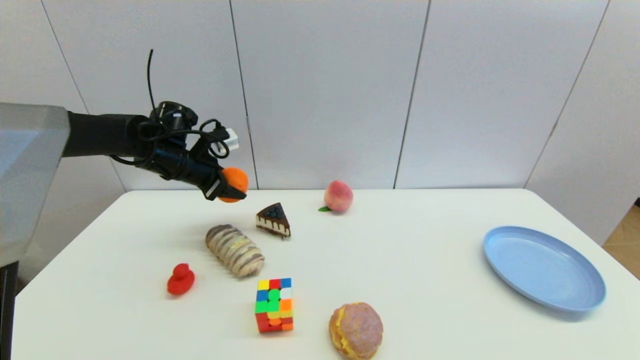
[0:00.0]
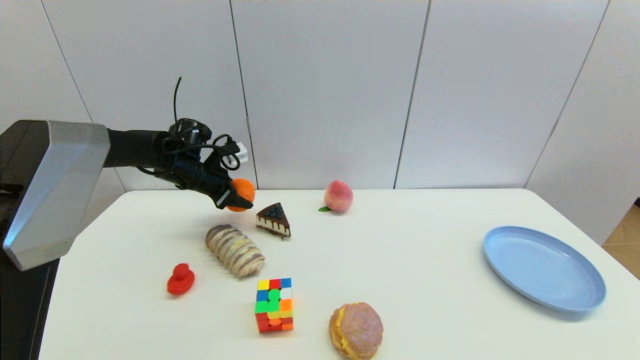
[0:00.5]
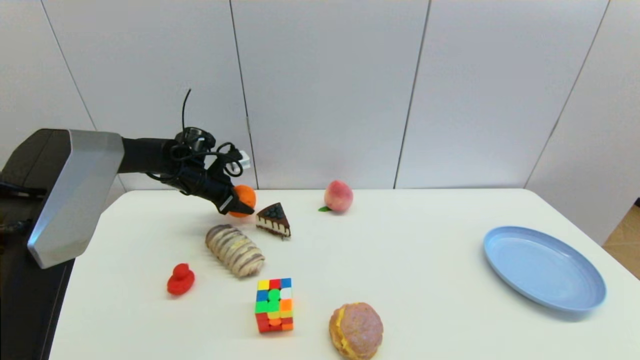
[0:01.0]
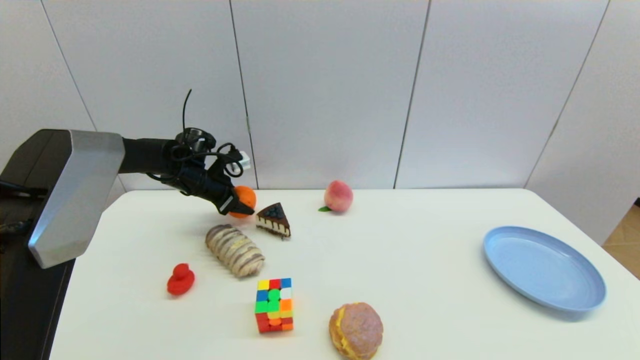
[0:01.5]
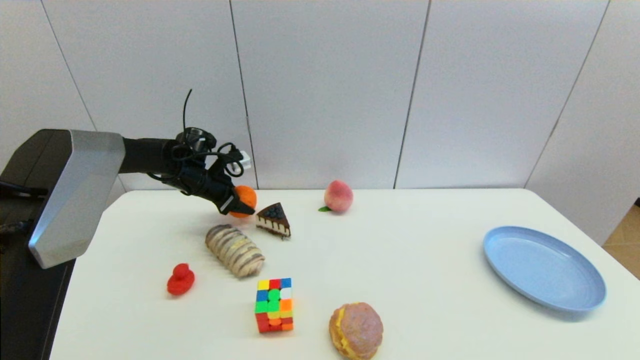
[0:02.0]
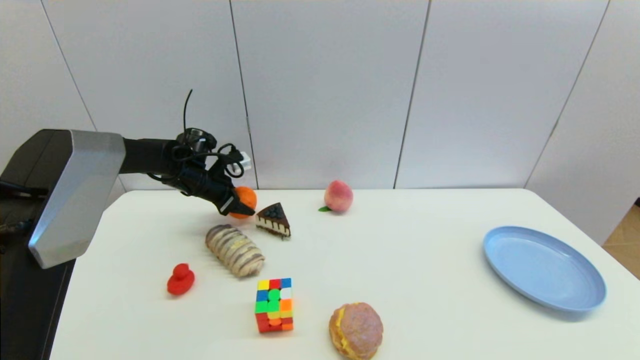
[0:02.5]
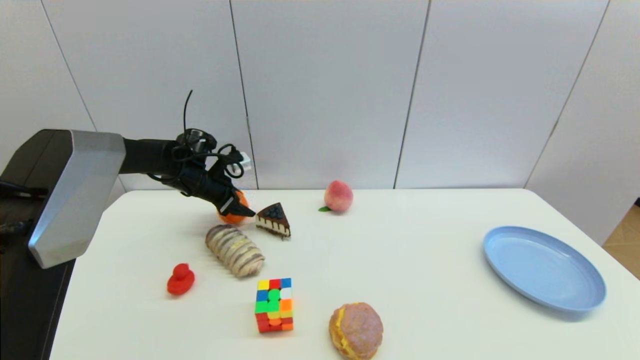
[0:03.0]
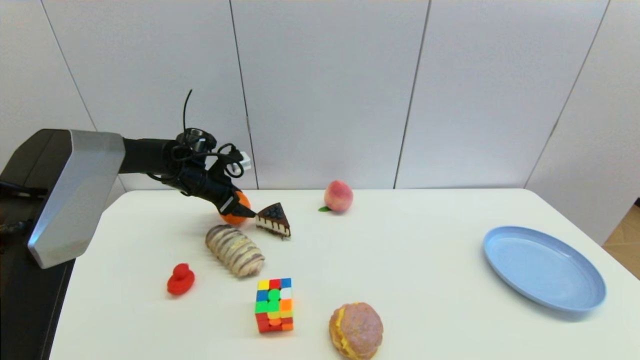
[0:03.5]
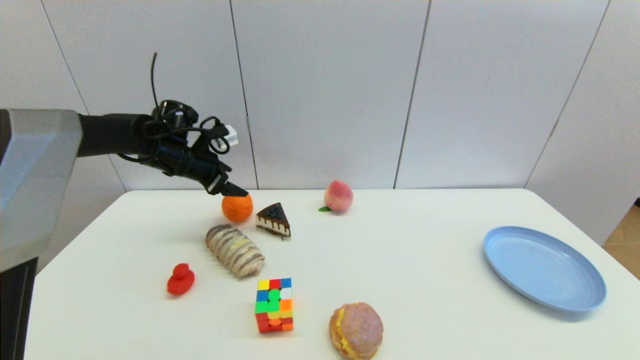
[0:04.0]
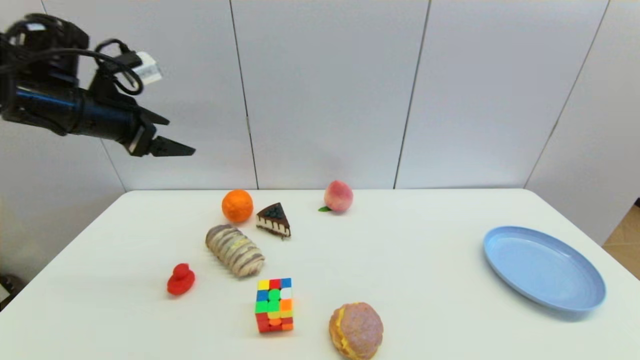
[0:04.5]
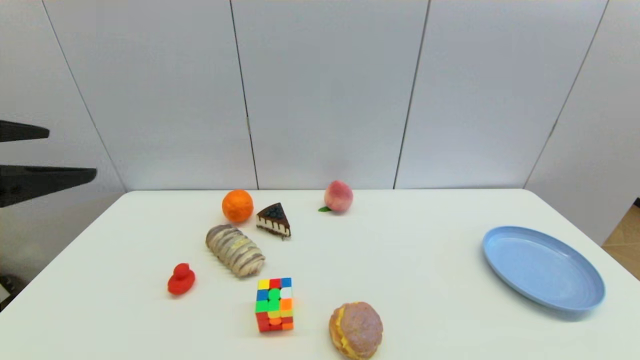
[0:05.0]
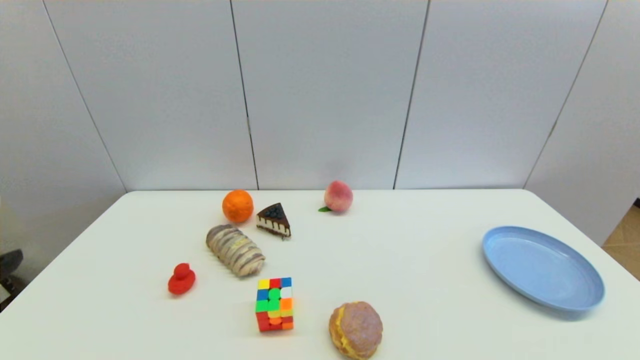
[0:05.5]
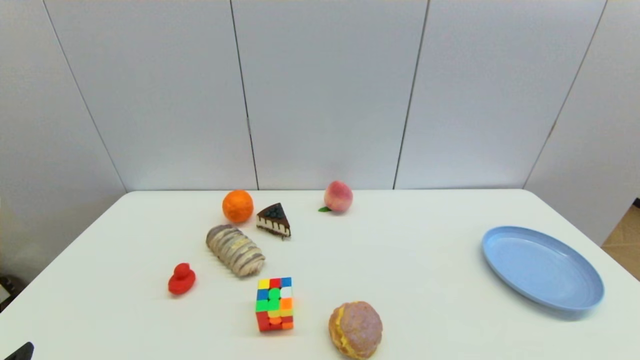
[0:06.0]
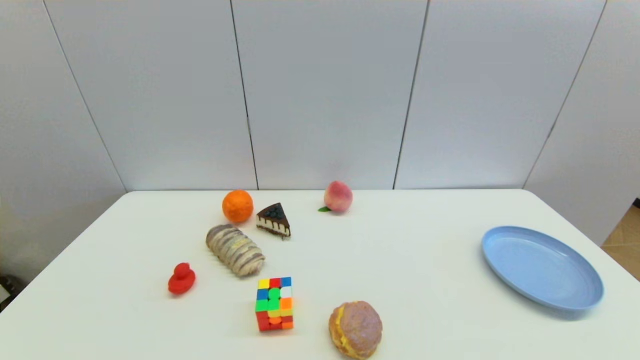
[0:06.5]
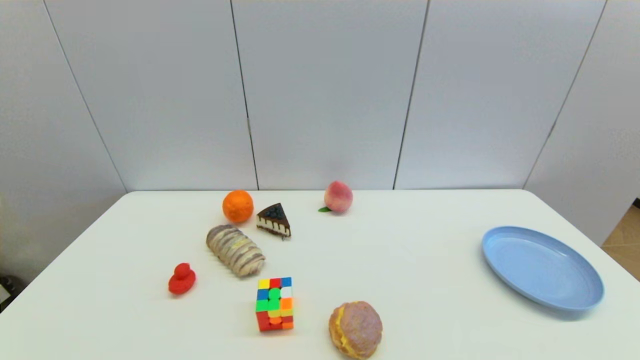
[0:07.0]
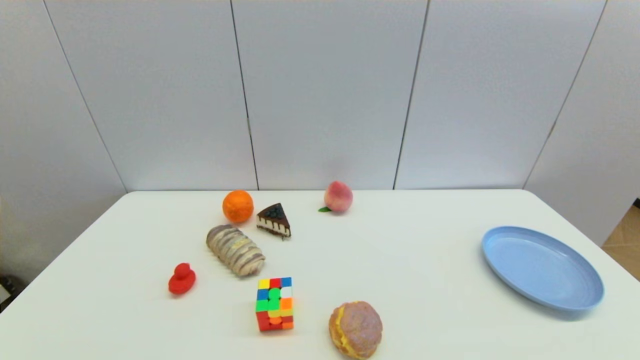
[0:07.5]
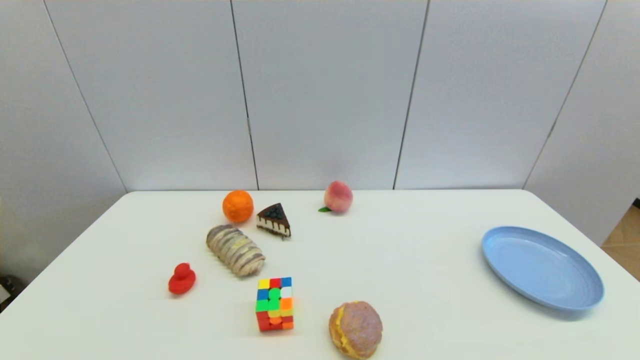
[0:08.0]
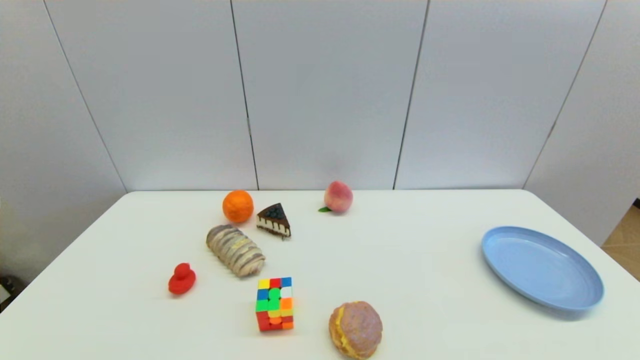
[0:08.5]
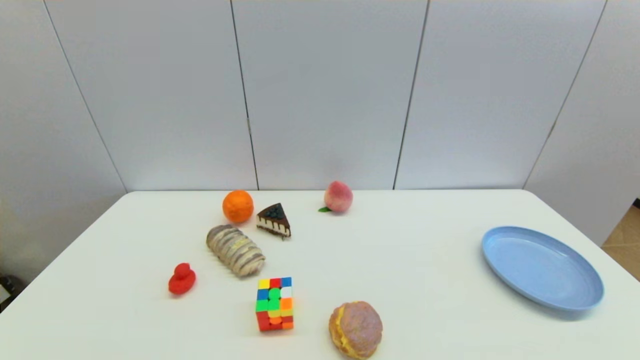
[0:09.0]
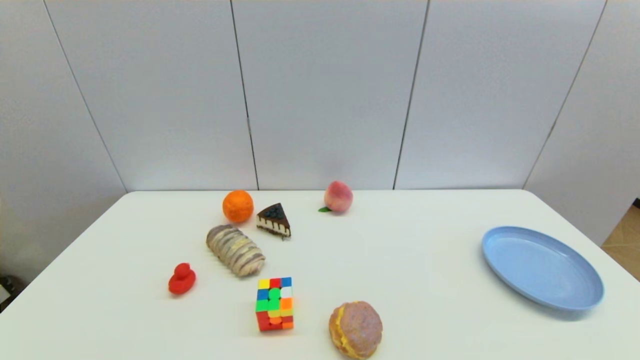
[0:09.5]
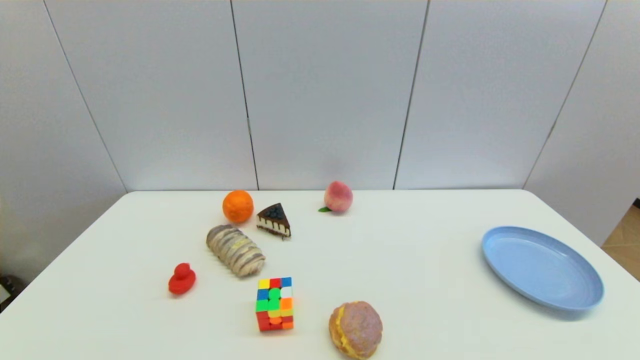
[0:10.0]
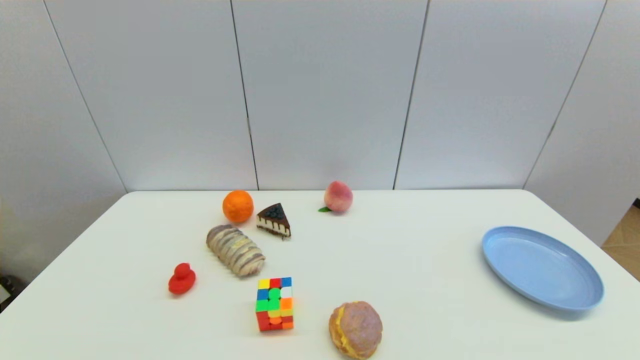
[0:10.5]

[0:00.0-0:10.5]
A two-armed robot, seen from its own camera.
Step, 0:00.0 to 0:03.0: Place the orange on the table with left gripper.
0:00.0 to 0:02.0: The left gripper travels downward by approximately 5 cm.
0:02.0 to 0:04.0: The left gripper travels upward by approximately 5 cm, and opens its fingers.
0:04.0 to 0:06.5: The left gripper is displaced backward by some 50 cm.
0:08.5 to 0:10.5: The two grippers keep their place.
